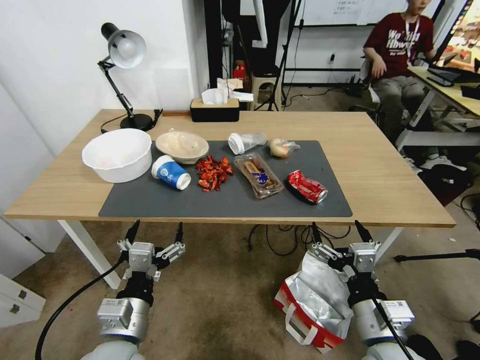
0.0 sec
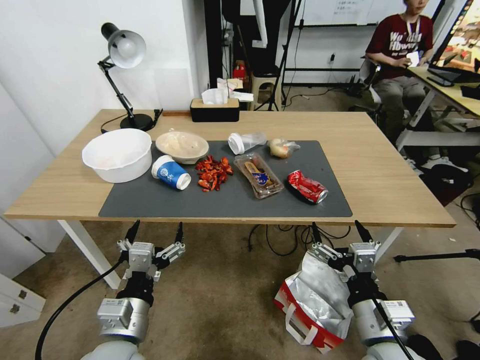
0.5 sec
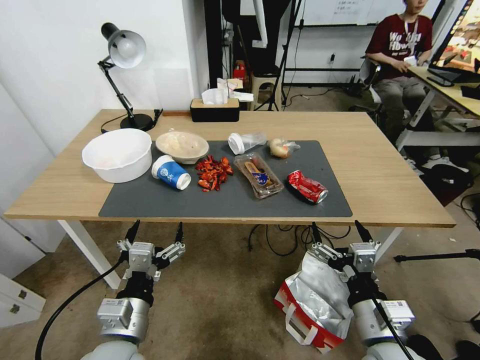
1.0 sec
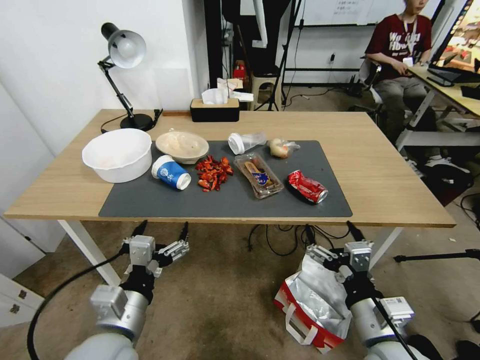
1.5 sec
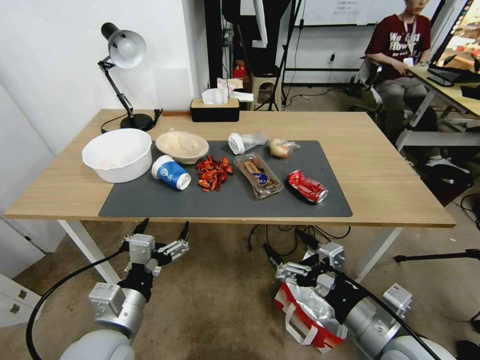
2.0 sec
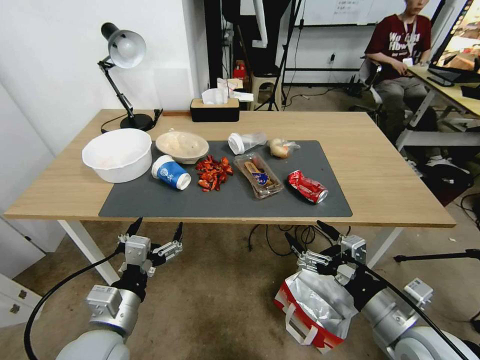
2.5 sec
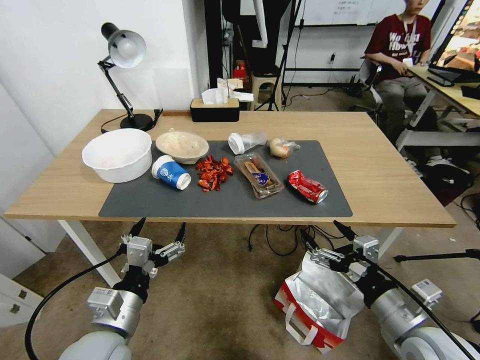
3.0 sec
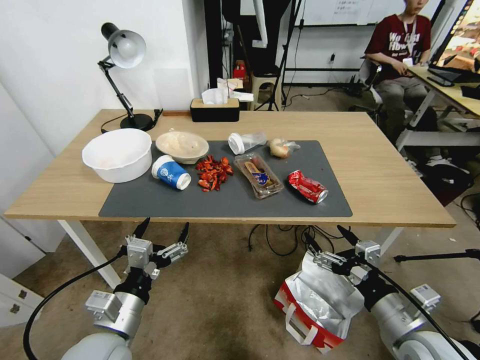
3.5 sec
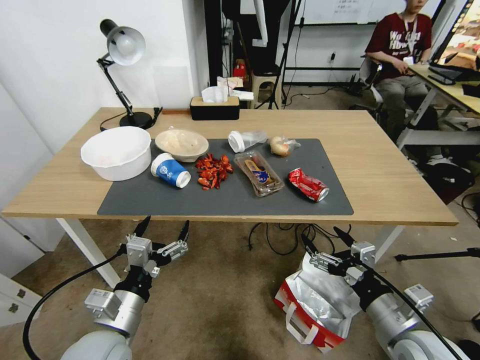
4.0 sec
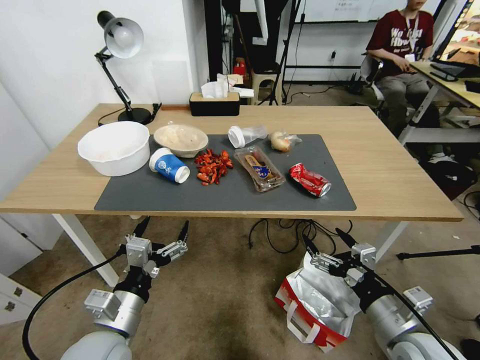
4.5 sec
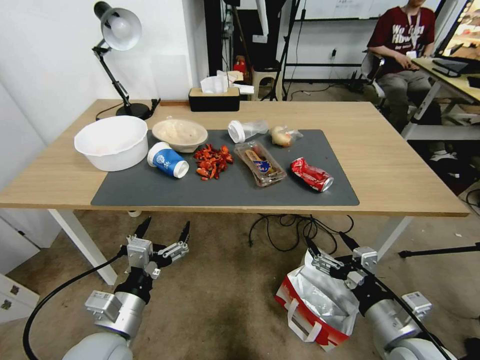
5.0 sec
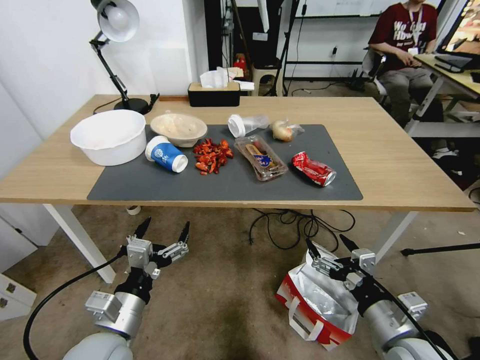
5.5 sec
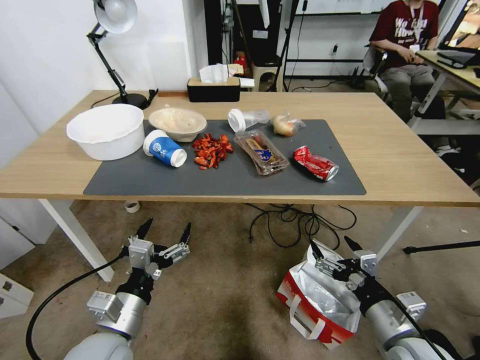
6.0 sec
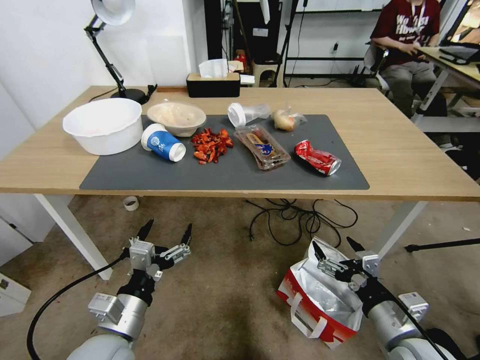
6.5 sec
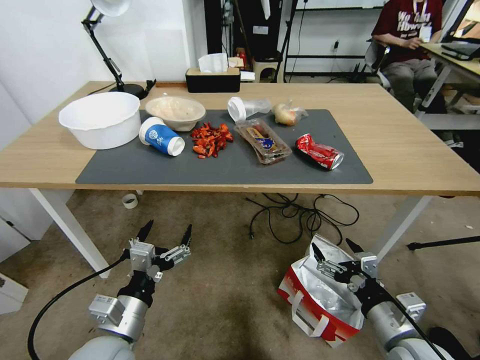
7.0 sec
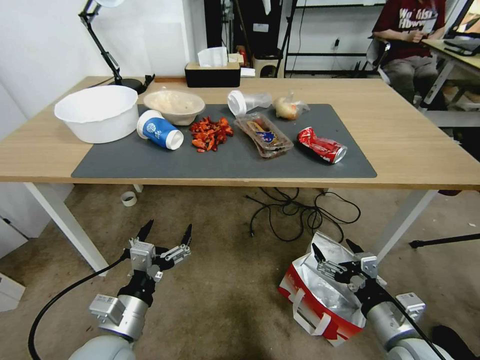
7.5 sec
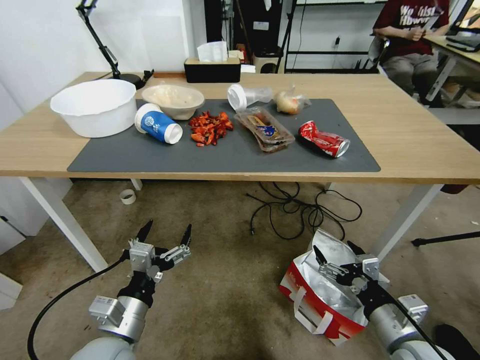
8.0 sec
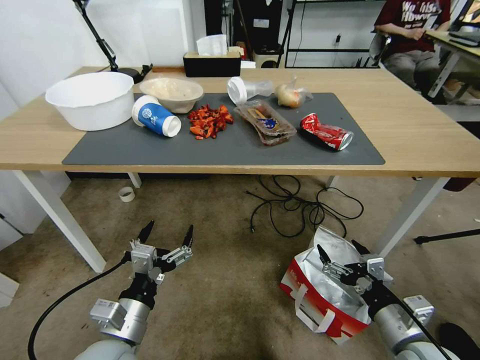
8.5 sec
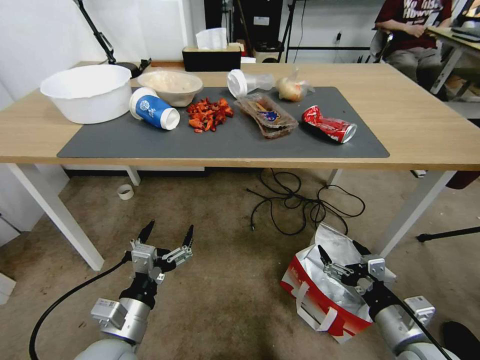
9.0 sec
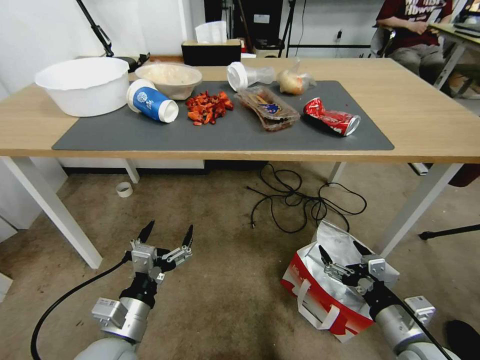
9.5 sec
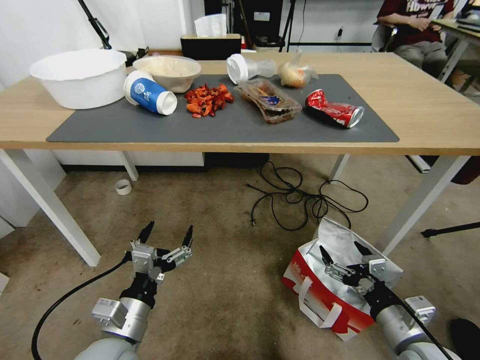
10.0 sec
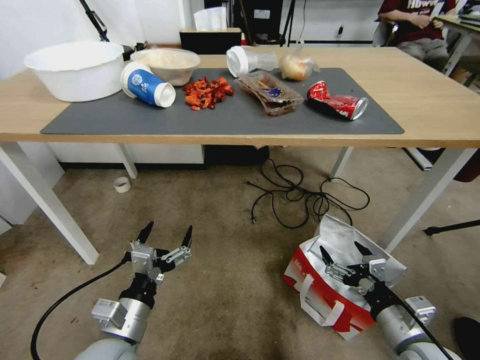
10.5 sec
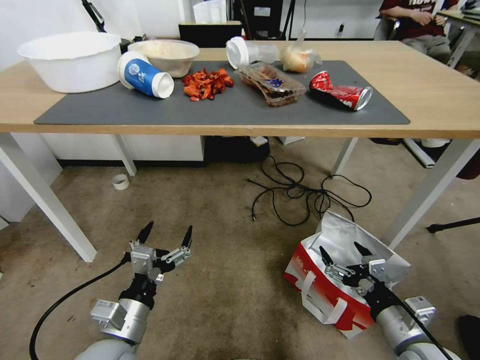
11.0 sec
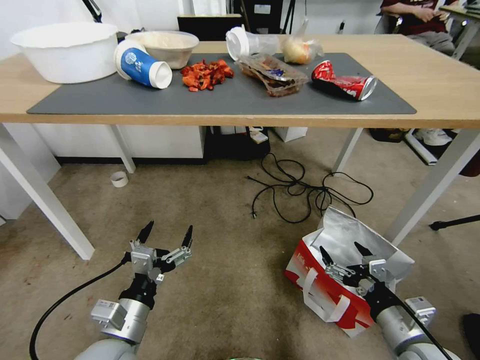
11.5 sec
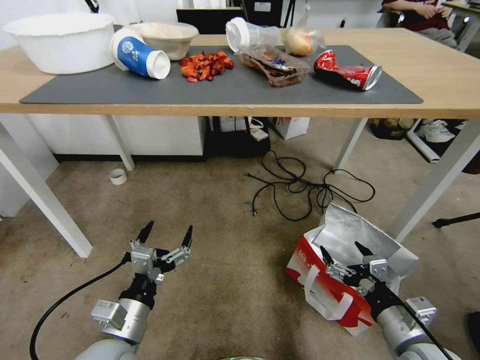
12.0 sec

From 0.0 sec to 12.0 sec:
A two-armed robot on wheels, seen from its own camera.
Task of the whole recording: Pick up the food delivery bag from the floor and place it on the table.
From 2.0 sec to 4.0 sec: The right gripper shifts some 5 cm to the right and downward.

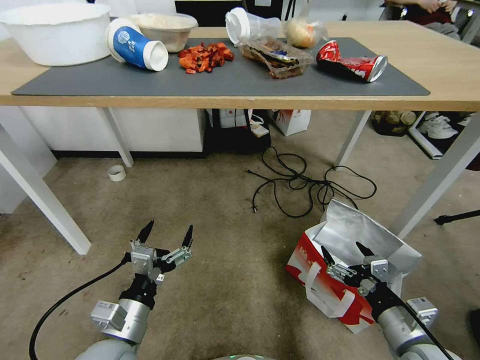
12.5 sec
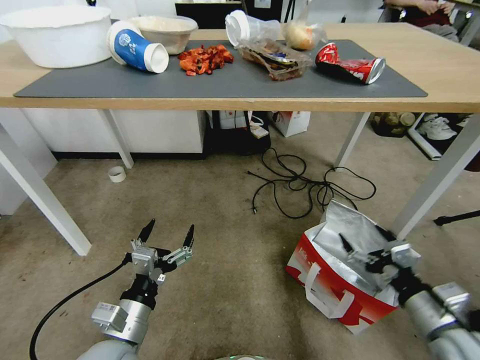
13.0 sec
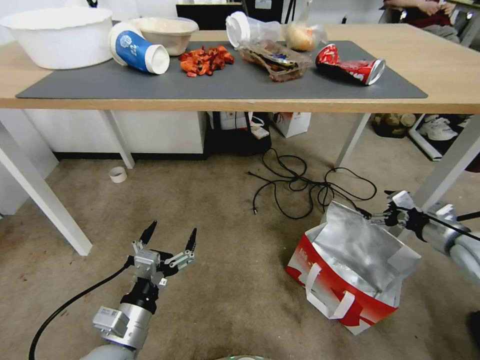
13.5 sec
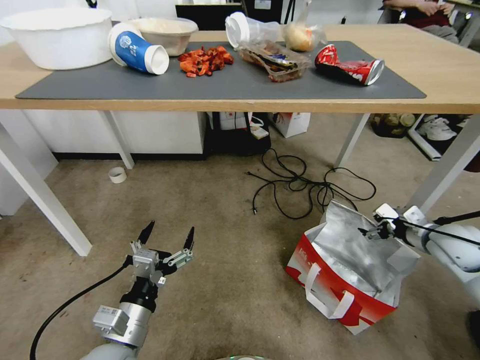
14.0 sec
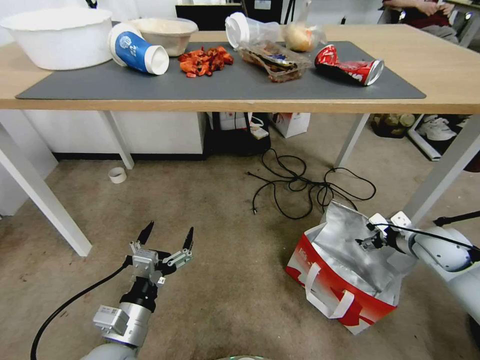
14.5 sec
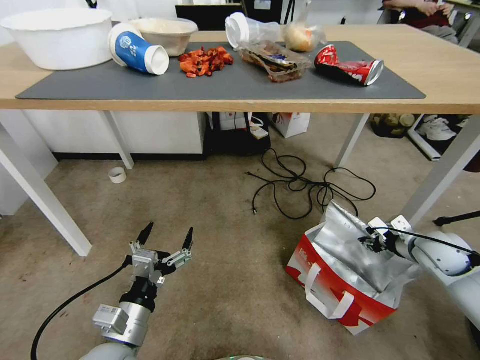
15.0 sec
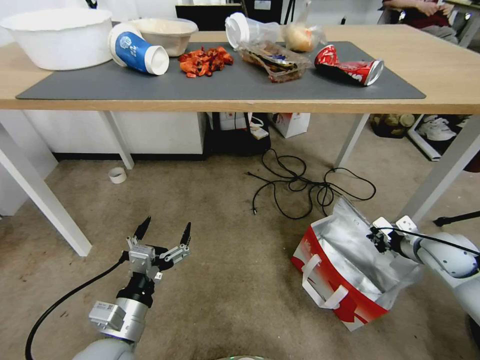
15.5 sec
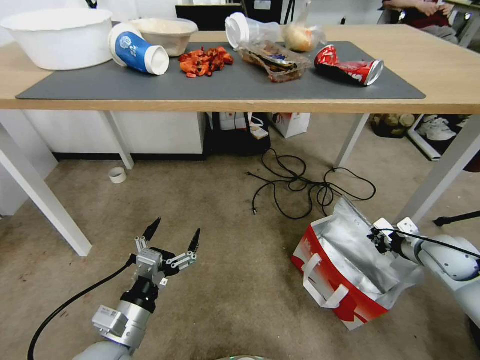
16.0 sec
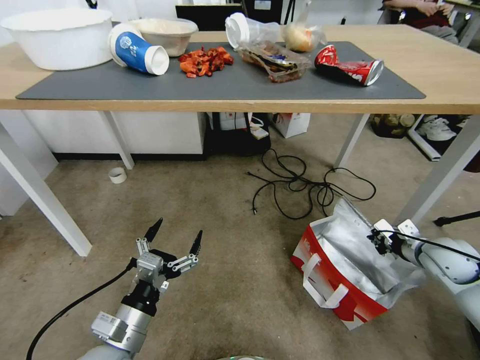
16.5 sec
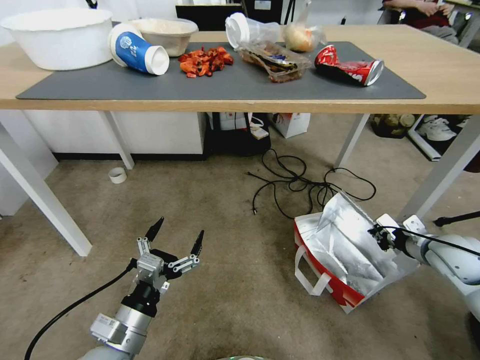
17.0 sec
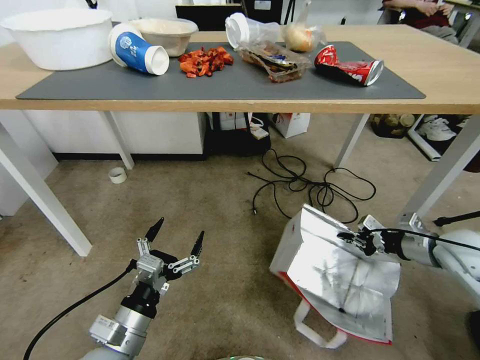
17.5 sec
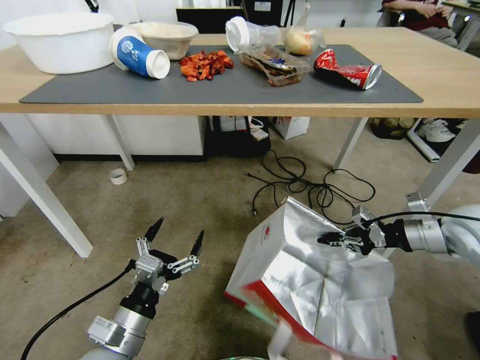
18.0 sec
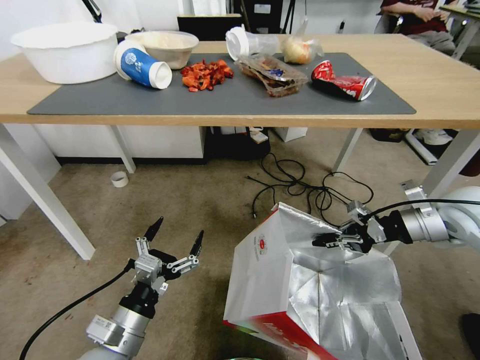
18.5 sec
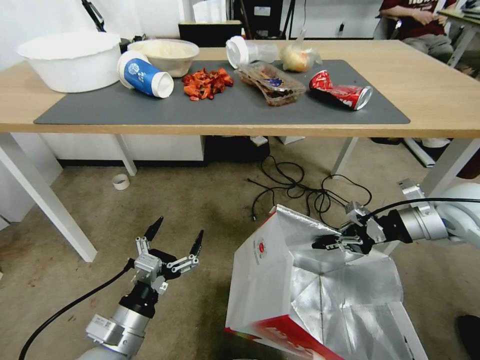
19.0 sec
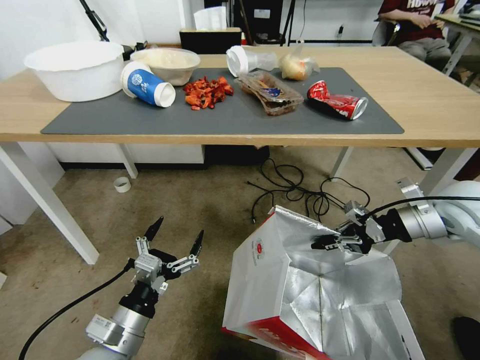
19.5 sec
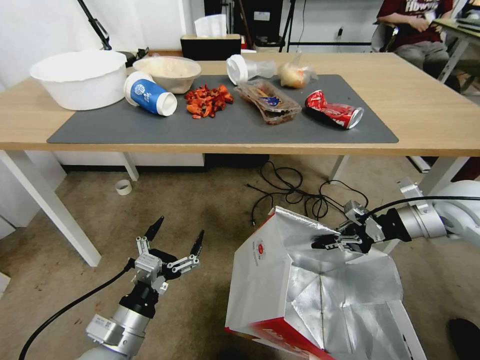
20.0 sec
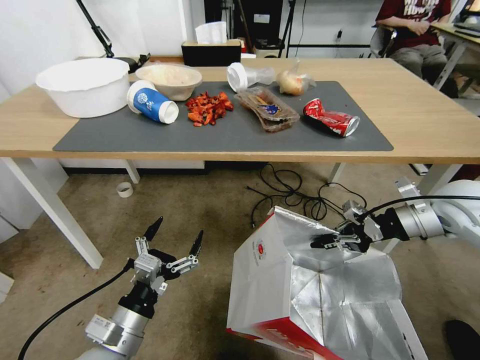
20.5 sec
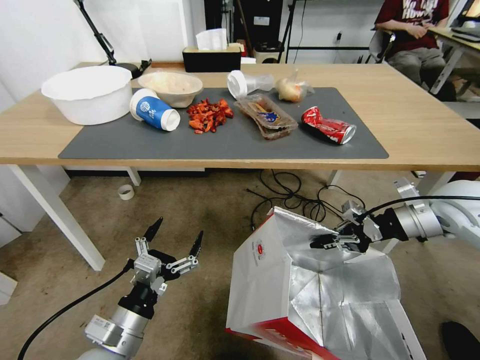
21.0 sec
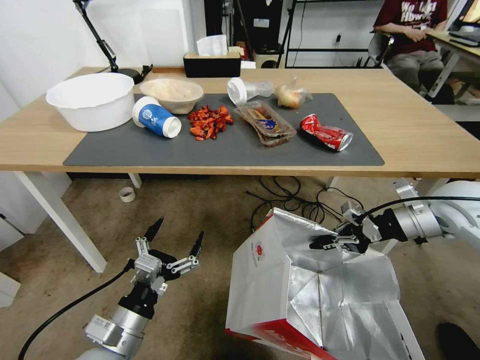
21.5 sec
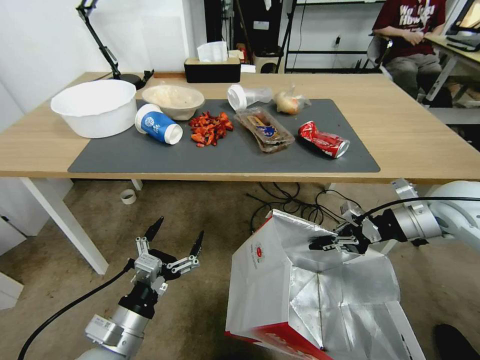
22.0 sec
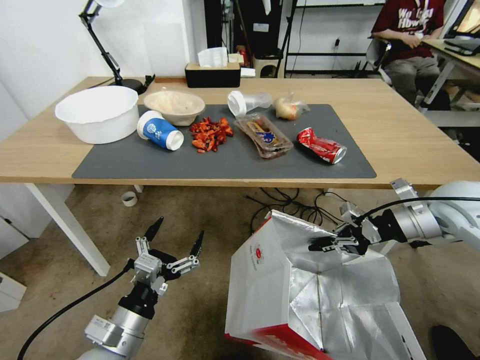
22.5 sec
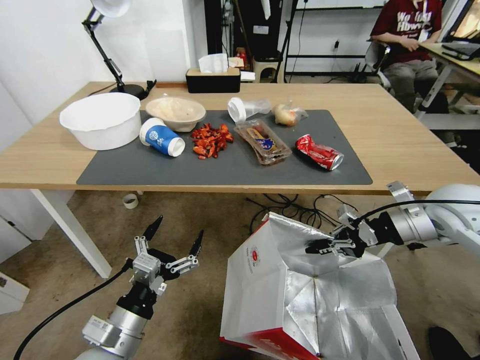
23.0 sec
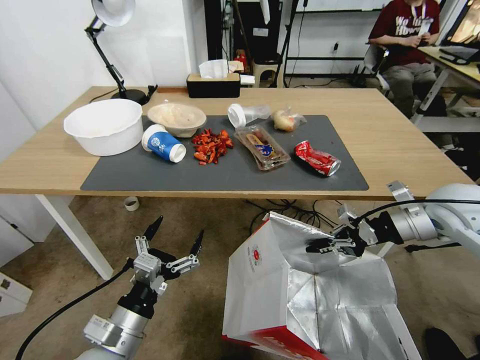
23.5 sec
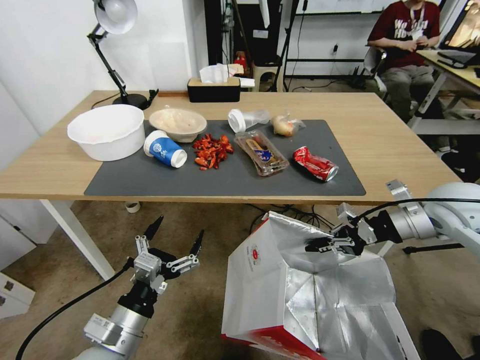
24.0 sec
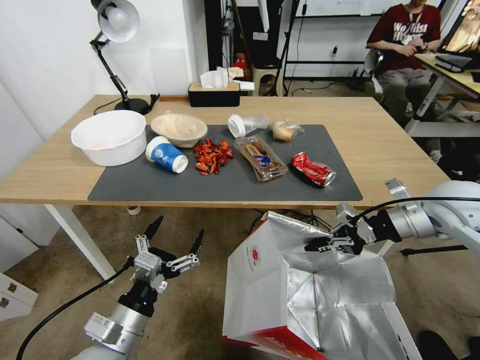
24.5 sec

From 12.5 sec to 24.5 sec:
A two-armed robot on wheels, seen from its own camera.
Task of the whole recording: Pick up the food delivery bag from the floor and place it on the table.
From 12.5 sec to 14.5 sec: The right gripper moves forward and to the right, approximately 25 cm.
From 14.5 sec to 16.5 sec: The right gripper closes.
From 16.5 sec to 18.5 sec: The right gripper goes approximately 15 cm upward.

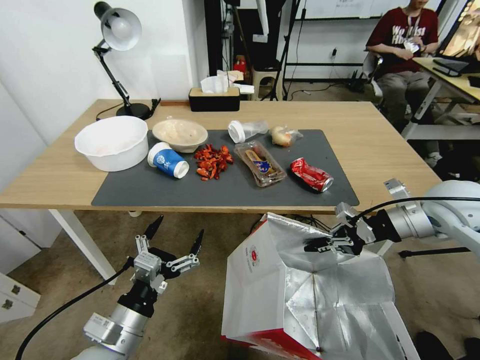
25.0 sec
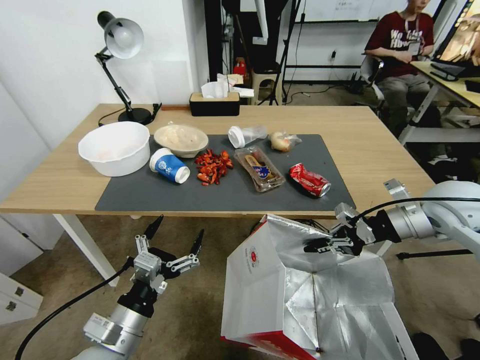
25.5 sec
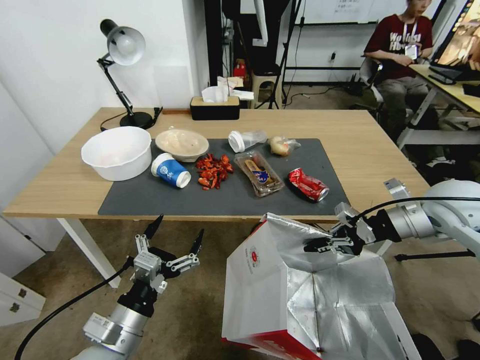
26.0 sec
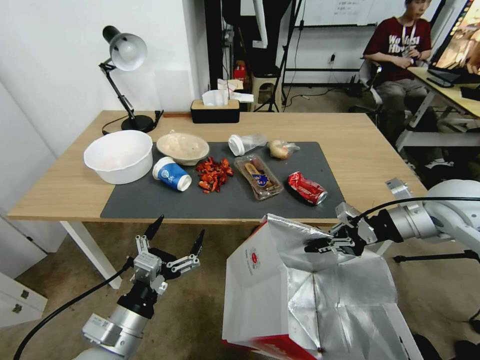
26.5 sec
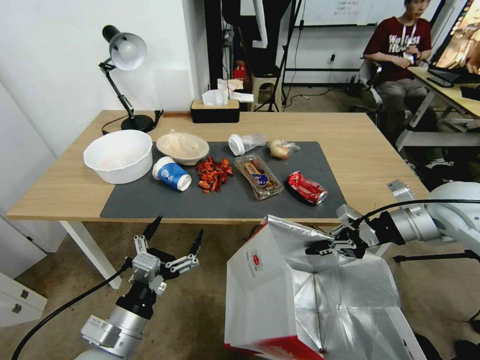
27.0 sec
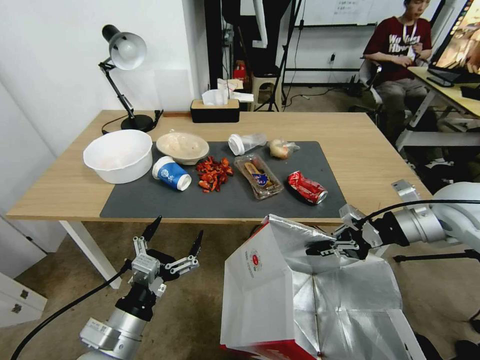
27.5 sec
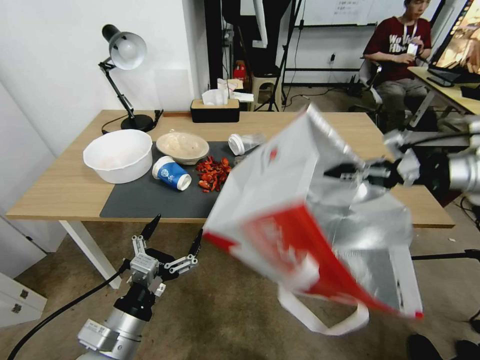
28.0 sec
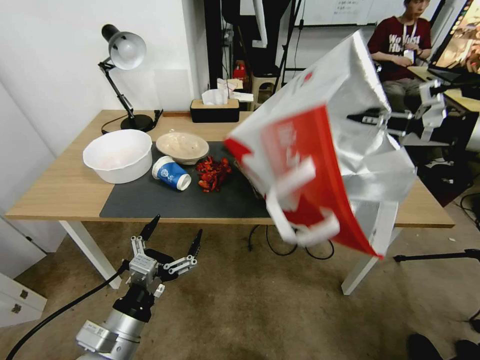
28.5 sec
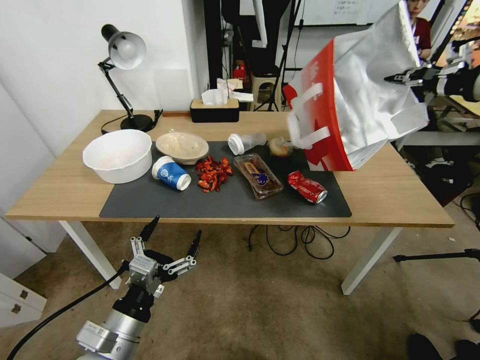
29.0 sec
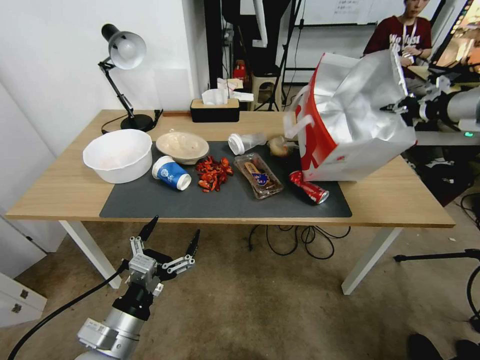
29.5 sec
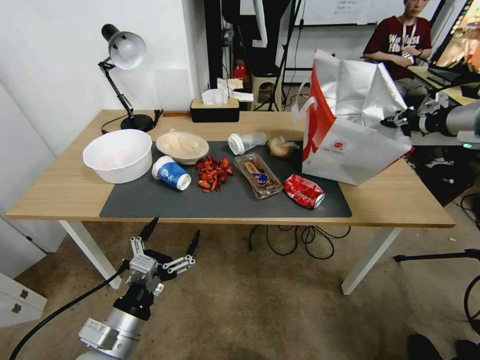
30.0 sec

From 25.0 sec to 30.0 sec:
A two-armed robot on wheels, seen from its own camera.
Task of the whole recording: Pick up the food delivery bag from the floor and place it on the table.
From 27.5 sec to 30.0 sec: The right gripper goes about 20 cm upward, forward and to the right.
